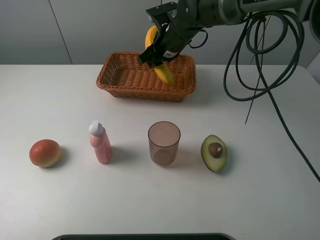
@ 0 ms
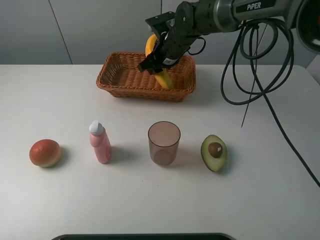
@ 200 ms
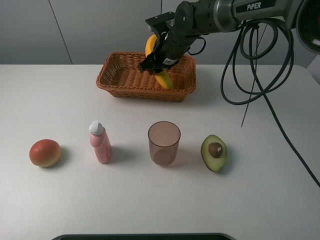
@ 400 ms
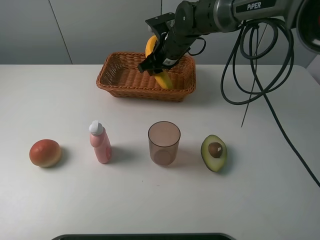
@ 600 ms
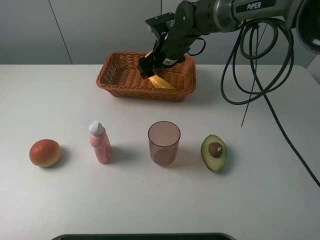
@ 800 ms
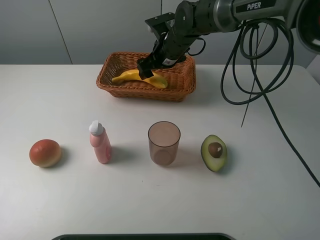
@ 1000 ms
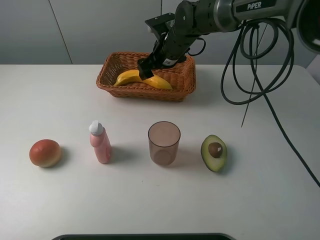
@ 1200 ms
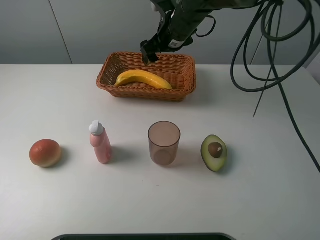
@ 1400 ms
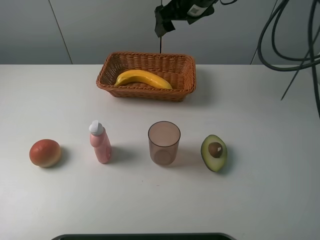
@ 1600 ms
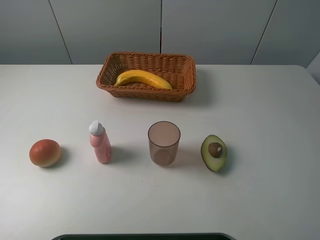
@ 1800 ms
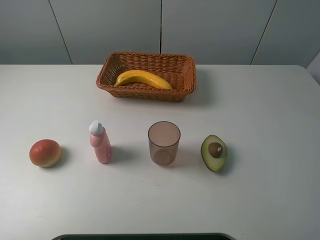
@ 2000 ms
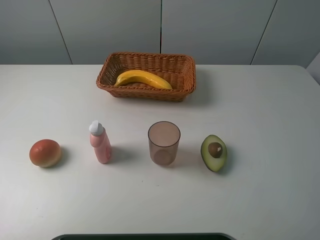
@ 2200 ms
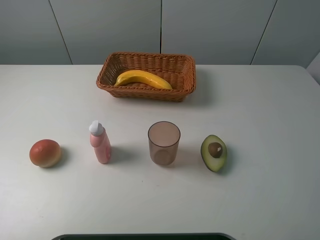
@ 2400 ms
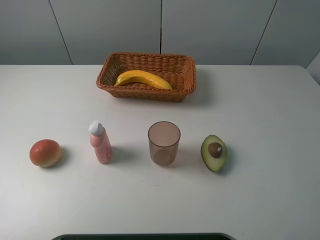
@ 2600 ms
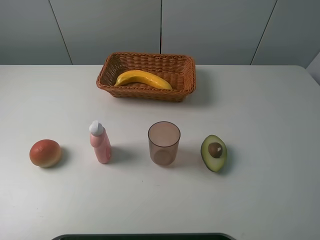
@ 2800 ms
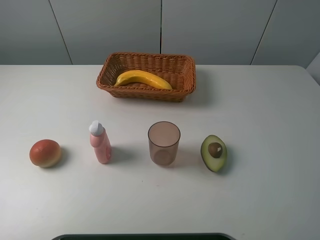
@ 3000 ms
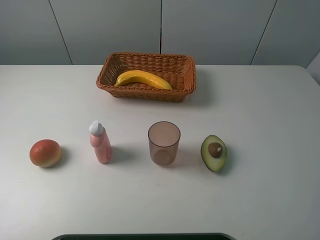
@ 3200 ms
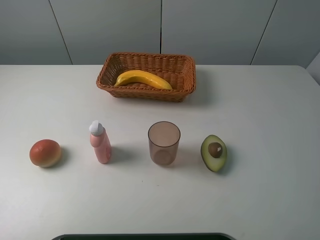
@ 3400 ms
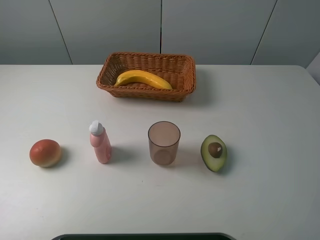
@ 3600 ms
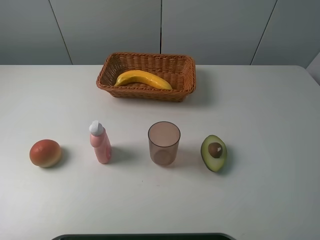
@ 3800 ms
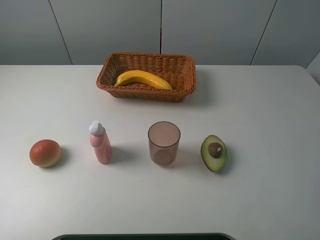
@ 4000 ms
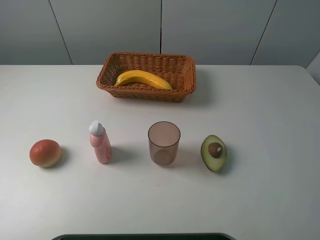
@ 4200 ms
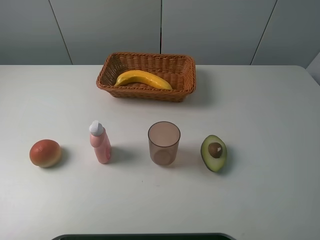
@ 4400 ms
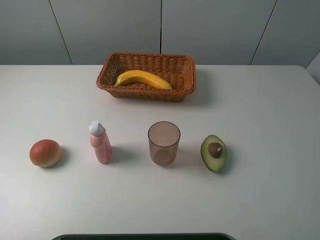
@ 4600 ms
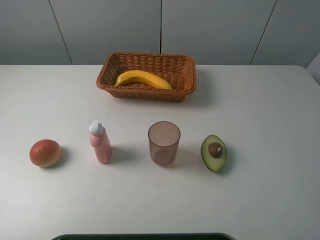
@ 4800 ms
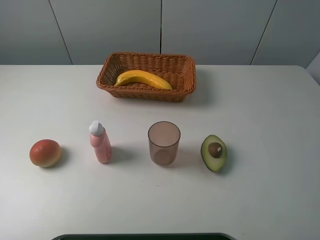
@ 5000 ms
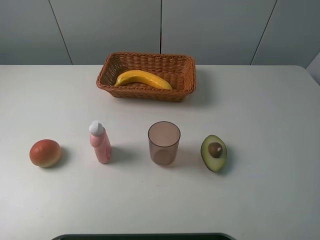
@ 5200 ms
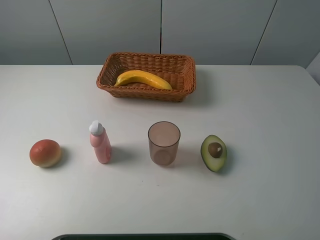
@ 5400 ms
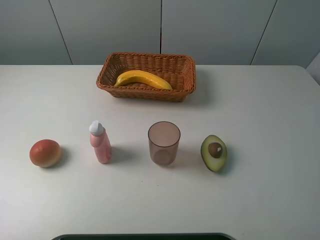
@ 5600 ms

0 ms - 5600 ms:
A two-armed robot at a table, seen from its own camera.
Task of the whole recording: randomly pick up an item from the table and put it in the basket.
0 ms - 1400 ms: The right gripper moves upward, roughly 5 cm, and opens its fingers.
1400 ms - 2800 ms: The right gripper heads backward, to the right and upward, covering approximately 50 cm.
4200 ms - 5600 ms: The two grippers keep their place.

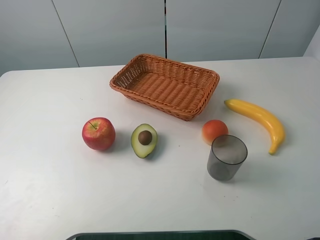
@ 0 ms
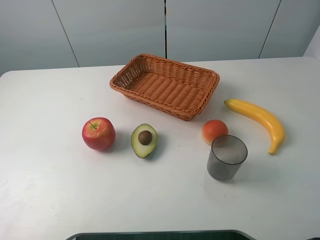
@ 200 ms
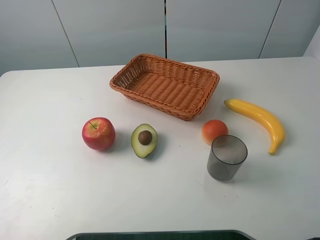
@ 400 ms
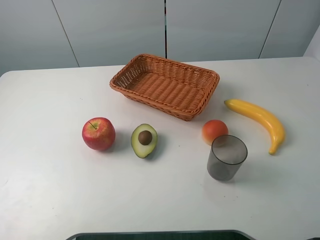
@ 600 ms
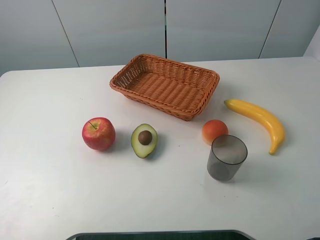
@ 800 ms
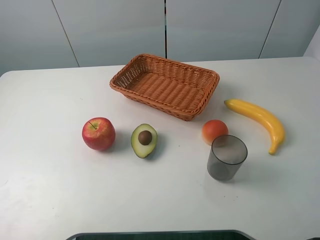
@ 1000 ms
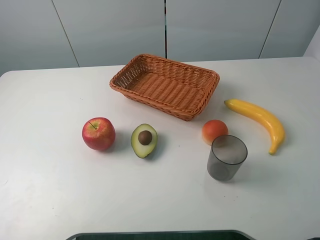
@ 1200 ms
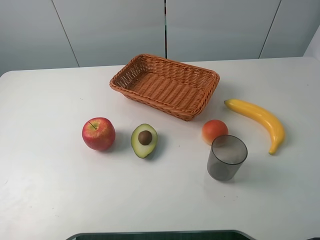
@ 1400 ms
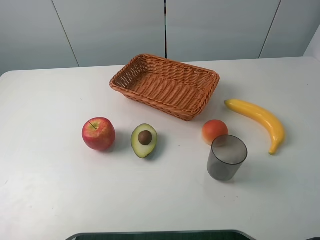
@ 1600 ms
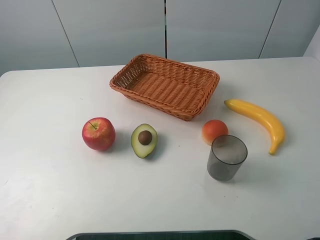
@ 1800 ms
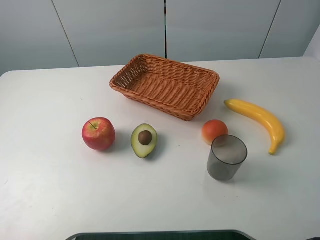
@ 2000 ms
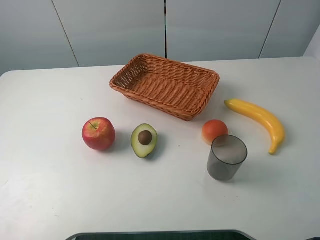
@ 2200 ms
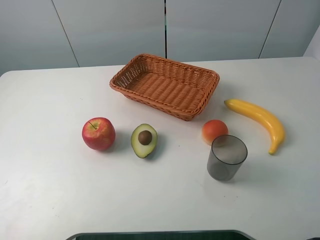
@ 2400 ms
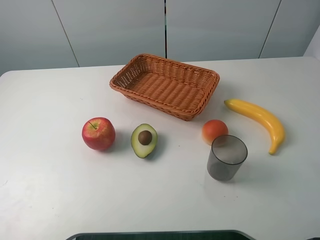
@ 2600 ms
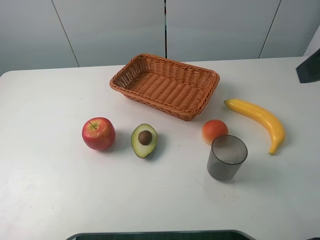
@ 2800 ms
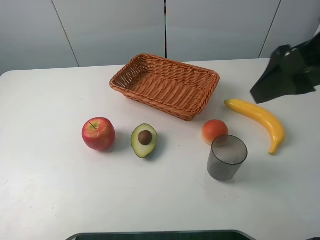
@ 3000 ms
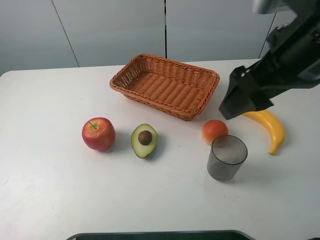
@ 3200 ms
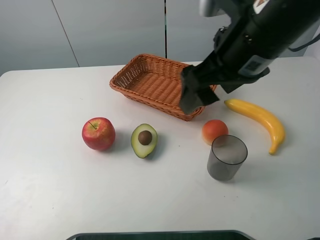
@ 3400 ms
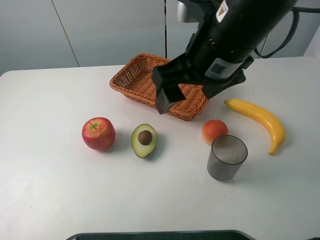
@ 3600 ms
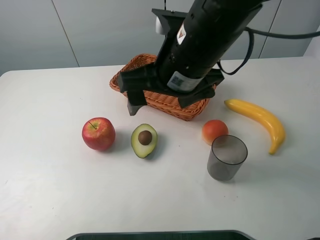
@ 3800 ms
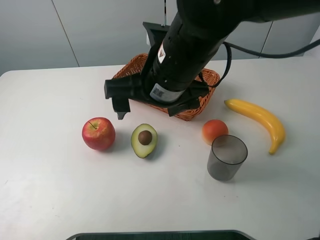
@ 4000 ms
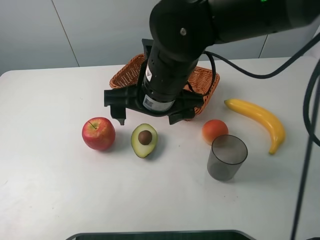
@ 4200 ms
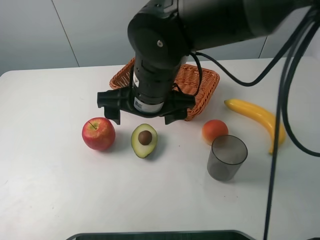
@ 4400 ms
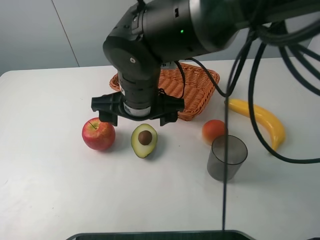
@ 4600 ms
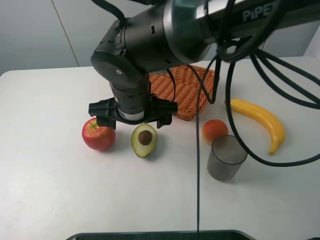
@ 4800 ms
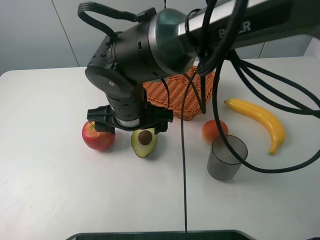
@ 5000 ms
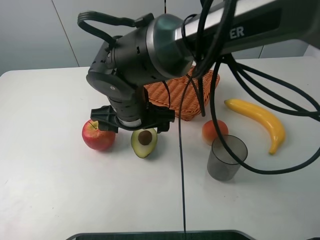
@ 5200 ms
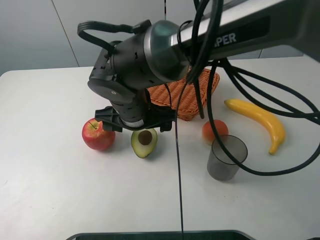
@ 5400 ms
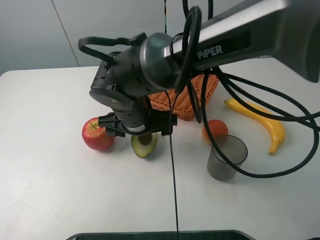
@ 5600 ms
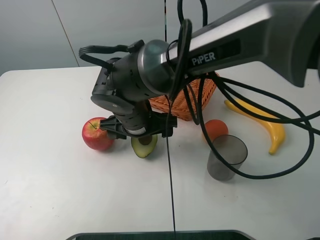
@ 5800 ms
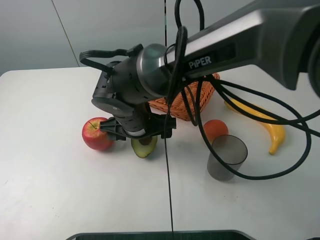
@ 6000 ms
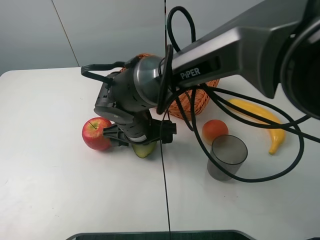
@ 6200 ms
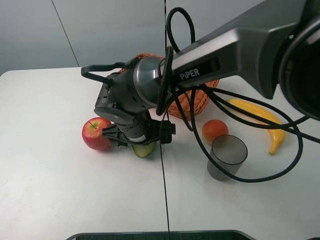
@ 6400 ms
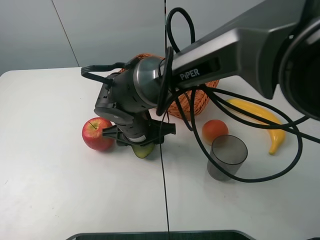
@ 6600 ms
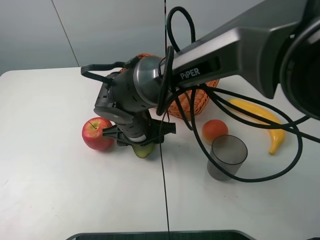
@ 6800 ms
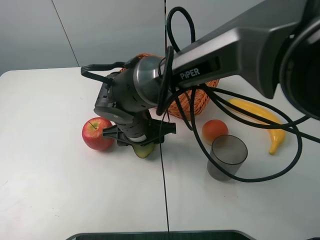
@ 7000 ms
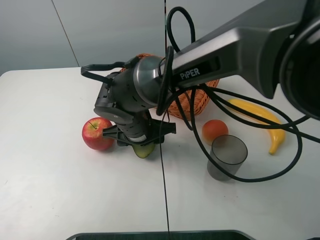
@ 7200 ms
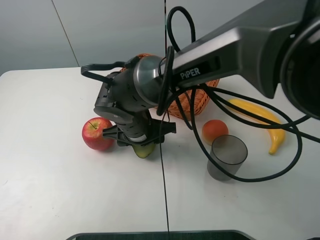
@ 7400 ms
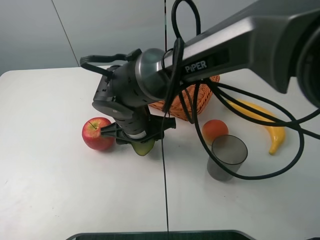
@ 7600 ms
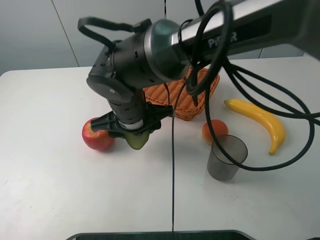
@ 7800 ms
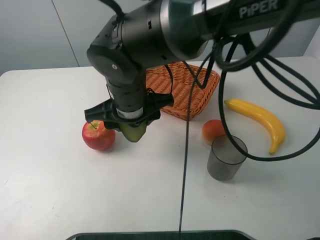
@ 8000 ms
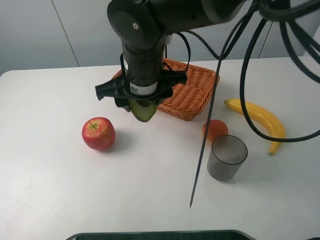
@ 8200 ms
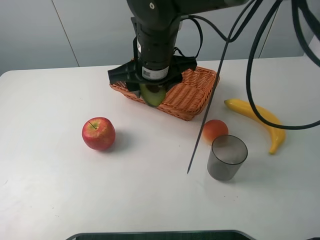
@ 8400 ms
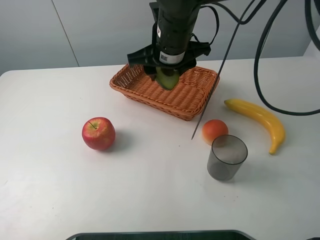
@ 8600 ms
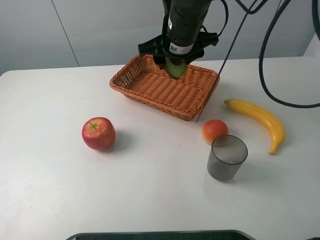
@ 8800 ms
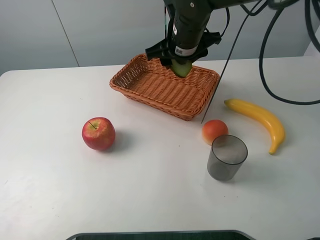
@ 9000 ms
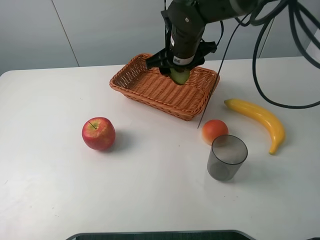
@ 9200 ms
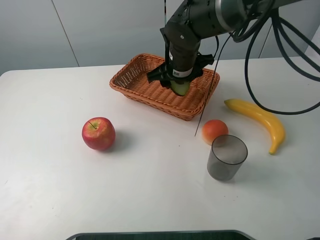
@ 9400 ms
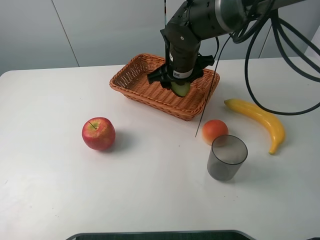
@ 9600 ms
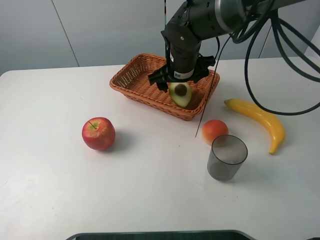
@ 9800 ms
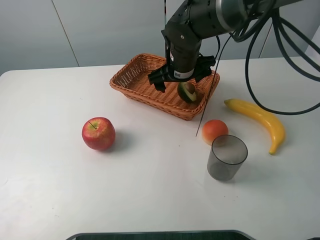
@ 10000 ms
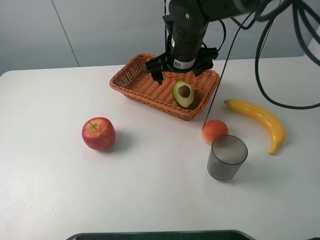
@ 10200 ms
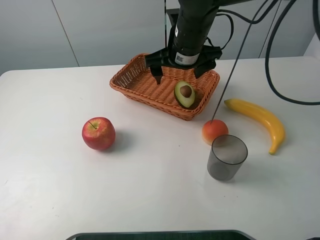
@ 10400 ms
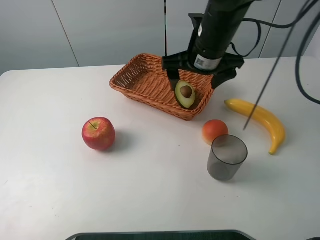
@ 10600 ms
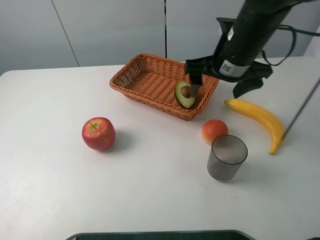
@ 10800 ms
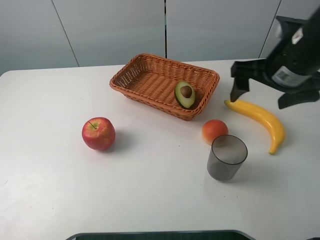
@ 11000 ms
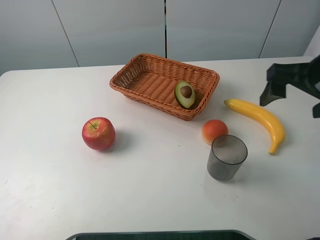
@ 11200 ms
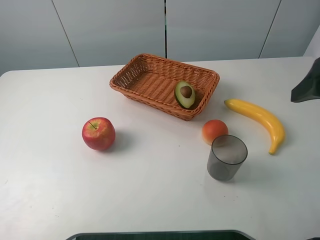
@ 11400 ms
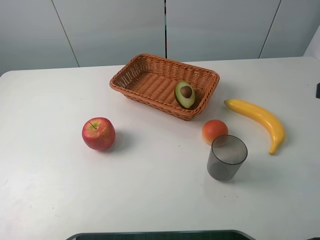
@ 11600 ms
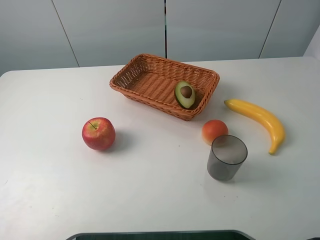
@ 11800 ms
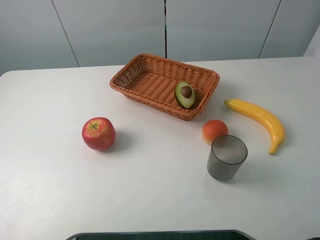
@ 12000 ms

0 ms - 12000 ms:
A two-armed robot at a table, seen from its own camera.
Task of the whole recording: randomly pick up an item from the table and put it in the basket.
Step, 0 ms - 6600 ms: Grasp the avocado with the right gripper.
Step, 6800 ms - 10600 ms: Place the avocado into the basket with the right gripper.
0 ms - 1600 ms: Both grippers stay about where they are.
1600 ms - 3000 ms: The right gripper shifts roughly 20 cm forward and to the left.
3000 ms - 4400 ms: The right gripper is displaced to the left and downward by approximately 25 cm.
4400 ms - 6000 ms: The right gripper heads downward, covering roughly 10 cm.
6000 ms - 7600 ms: The right gripper closes up.
7600 ms - 9000 ms: The right gripper is displaced forward, to the right and upward by approximately 20 cm.
9000 ms - 10400 ms: The right gripper opens its fingers.
10400 ms - 12000 ms: The right gripper is displaced backward and to the right by about 40 cm.

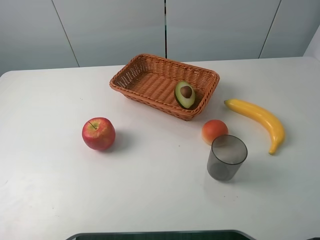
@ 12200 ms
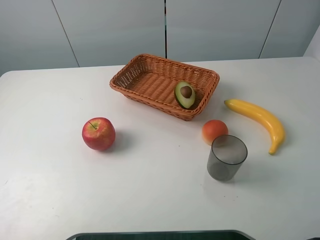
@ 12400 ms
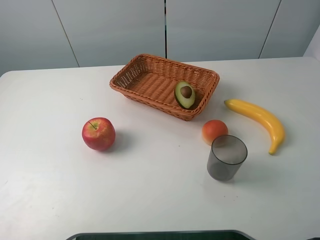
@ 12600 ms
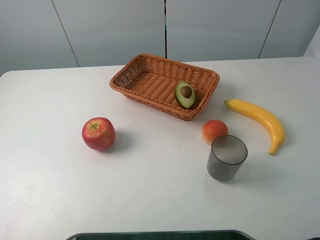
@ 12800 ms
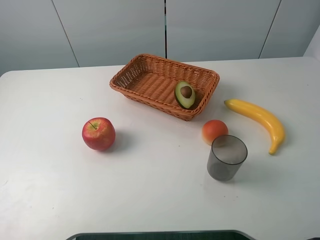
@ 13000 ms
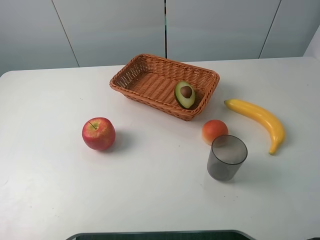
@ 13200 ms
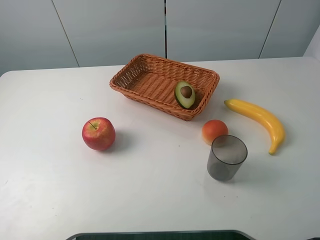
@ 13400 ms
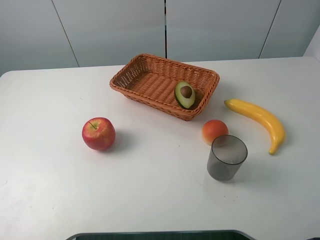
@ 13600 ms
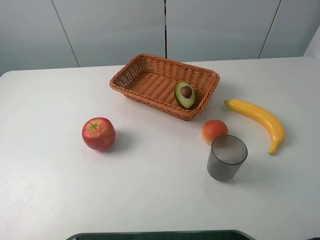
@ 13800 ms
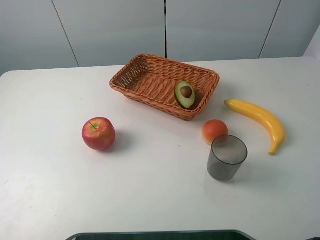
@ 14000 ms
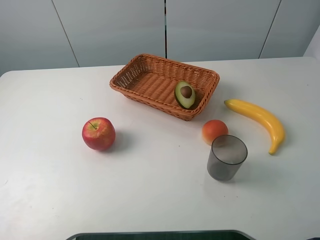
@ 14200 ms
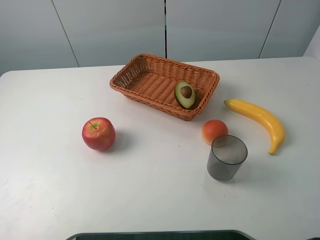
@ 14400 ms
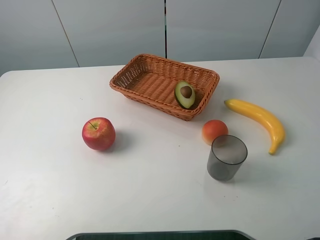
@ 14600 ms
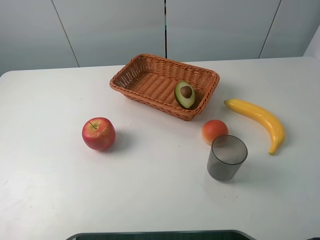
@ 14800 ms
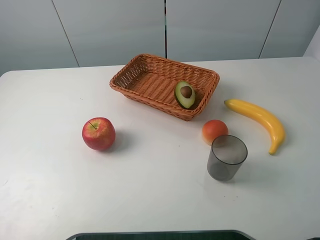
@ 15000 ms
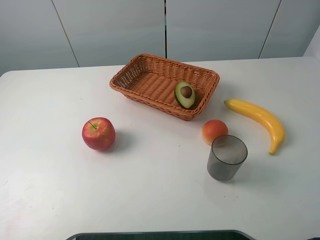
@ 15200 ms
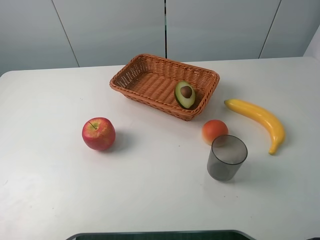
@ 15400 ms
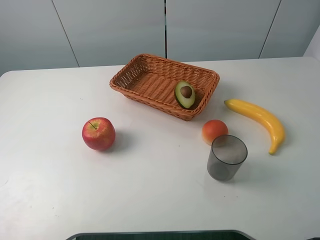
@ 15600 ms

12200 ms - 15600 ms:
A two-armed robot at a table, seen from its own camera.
Task of the whole recording: randomly pick up an item from the table and put it in the basket.
13800 ms - 15600 ms: Both grippers stay put.
